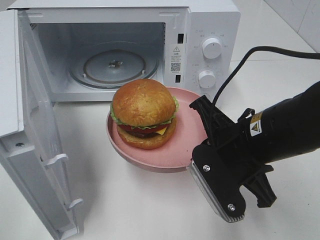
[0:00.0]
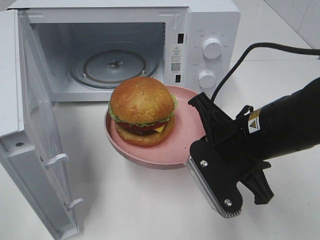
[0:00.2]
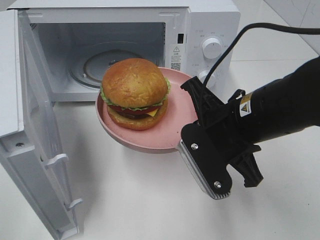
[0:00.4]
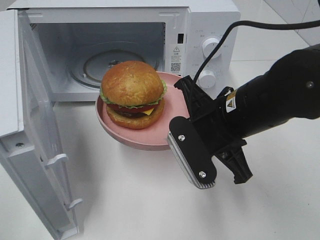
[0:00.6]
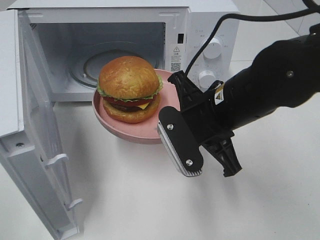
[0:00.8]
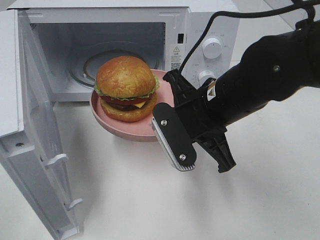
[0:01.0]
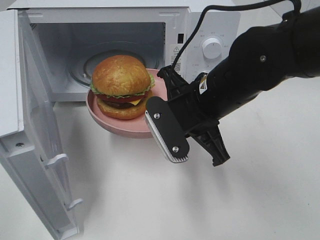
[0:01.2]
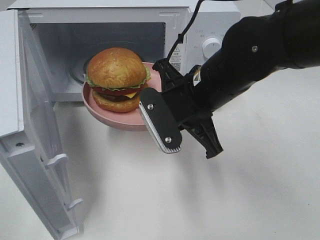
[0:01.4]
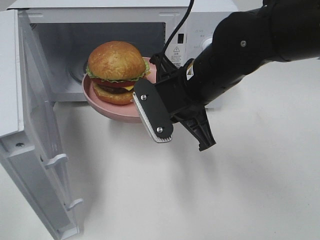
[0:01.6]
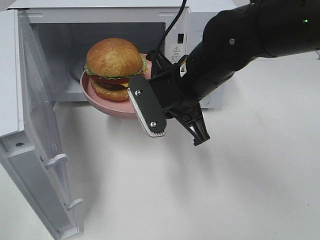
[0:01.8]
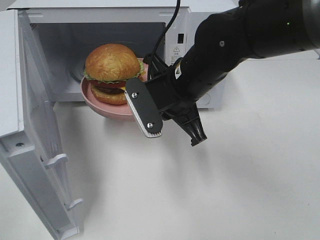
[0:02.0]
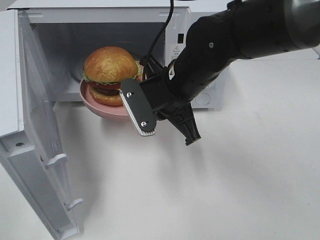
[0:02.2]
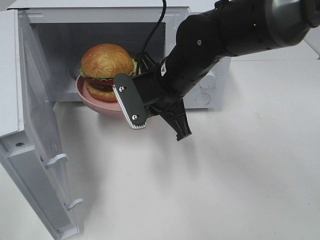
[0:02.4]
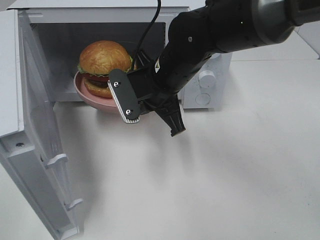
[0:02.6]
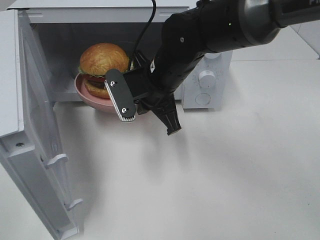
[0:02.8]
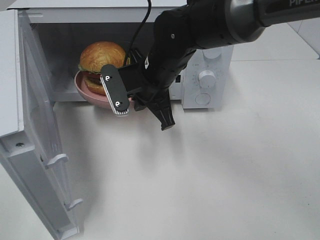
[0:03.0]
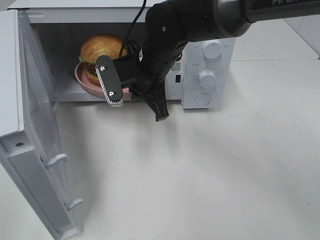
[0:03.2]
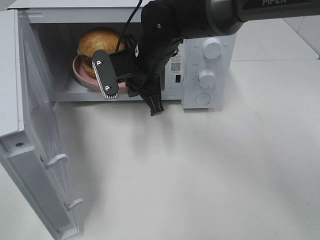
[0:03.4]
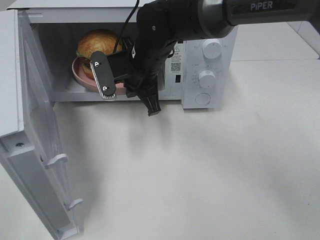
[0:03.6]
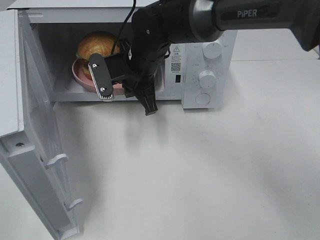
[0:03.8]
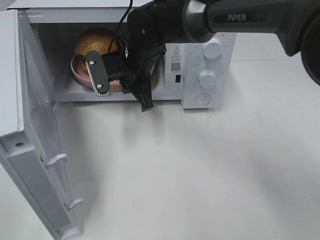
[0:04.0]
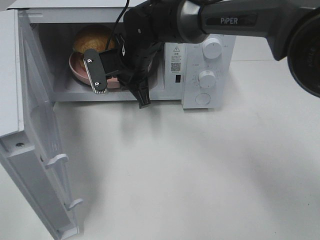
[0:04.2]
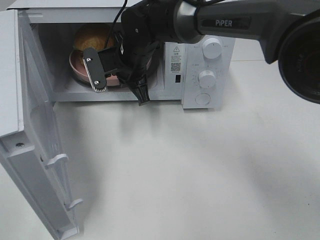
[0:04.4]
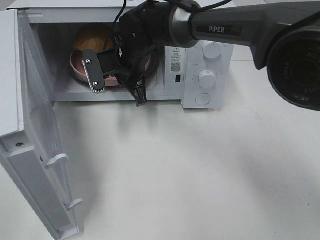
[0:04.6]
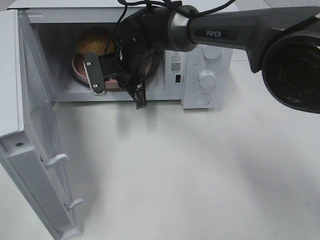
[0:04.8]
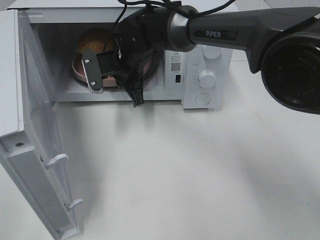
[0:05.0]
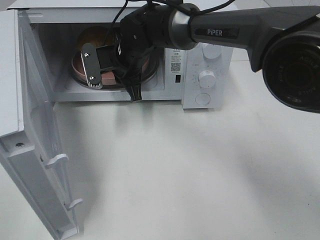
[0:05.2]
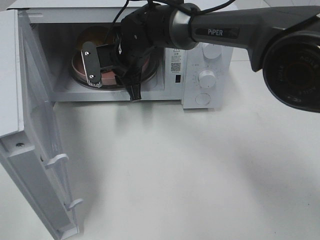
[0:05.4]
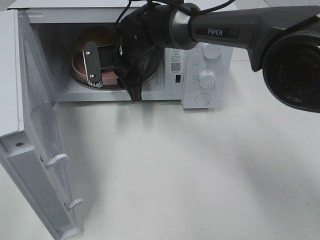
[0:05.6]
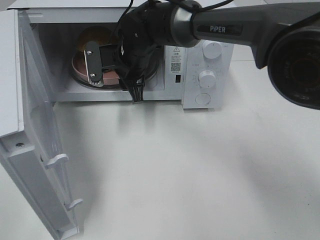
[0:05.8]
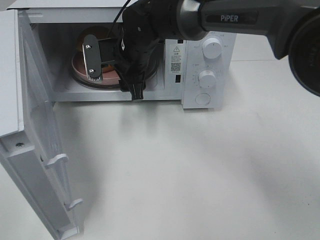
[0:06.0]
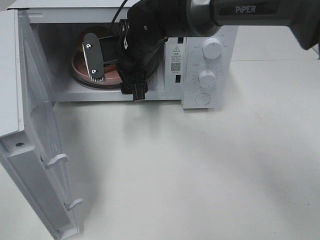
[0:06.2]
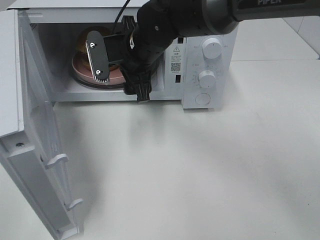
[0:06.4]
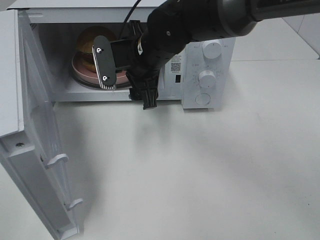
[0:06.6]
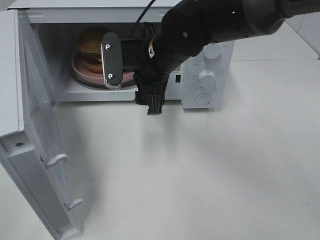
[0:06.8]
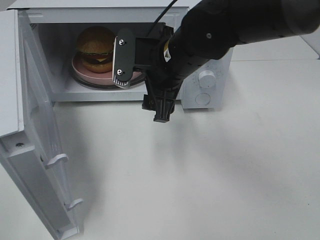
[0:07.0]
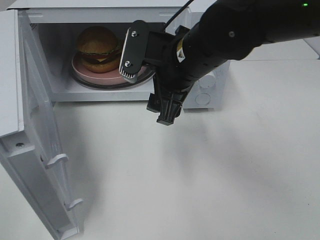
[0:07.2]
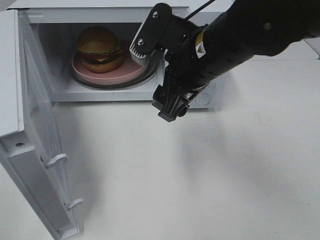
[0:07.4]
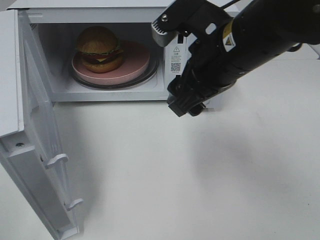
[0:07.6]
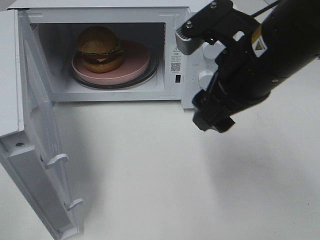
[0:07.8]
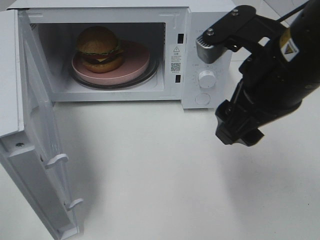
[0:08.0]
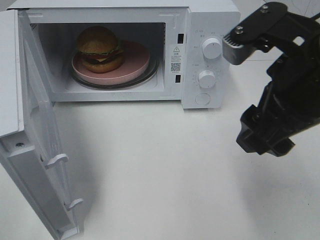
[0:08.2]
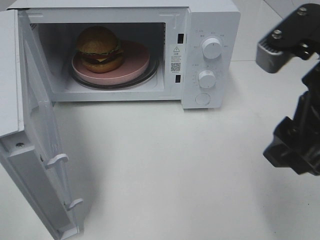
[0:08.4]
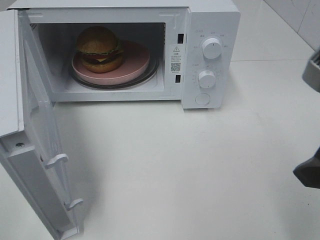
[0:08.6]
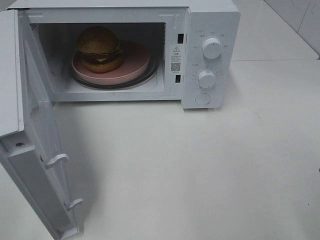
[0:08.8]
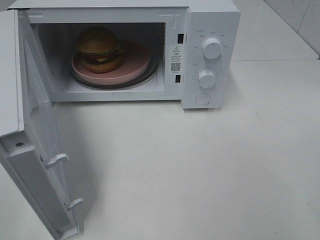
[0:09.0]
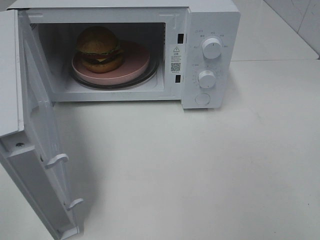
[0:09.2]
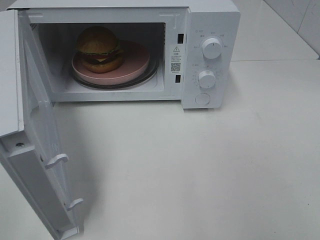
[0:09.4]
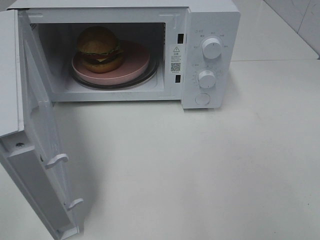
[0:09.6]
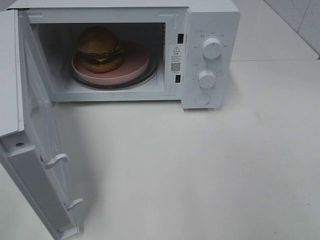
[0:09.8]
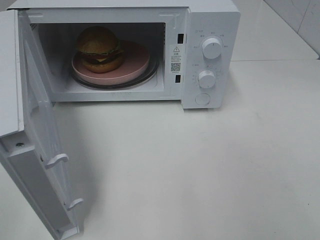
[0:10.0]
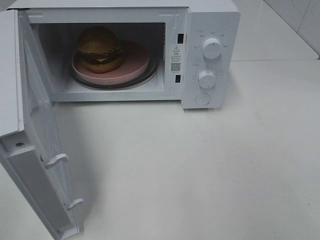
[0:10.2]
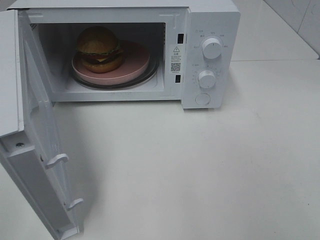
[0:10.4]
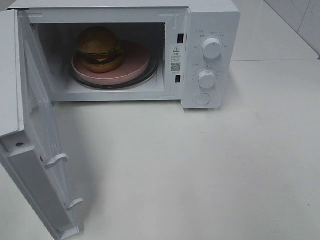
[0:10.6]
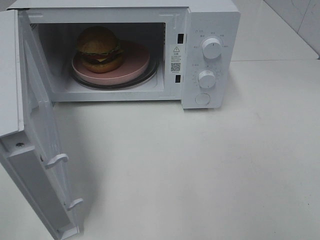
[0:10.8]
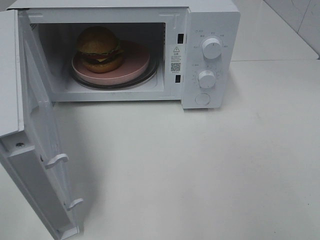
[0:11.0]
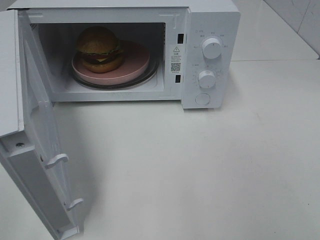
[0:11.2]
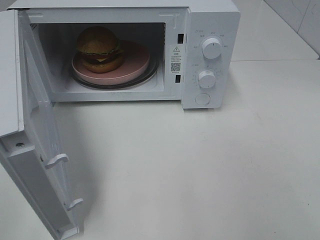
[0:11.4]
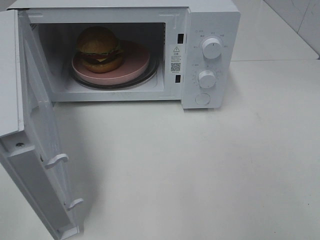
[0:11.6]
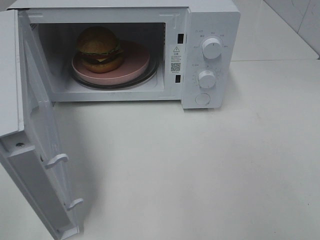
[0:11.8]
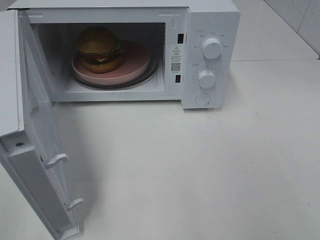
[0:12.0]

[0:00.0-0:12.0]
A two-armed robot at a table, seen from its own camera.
Task of the whole recording: Heat the burger.
Step, 0:00.0 to 0:05.4: Right hand: place the plate in the microwave.
0:00.0 to 0:01.6: The right gripper is displaced forward and to the left by roughly 10 cm.
0:01.6 to 0:03.0: The right gripper goes about 10 cm forward and to the left.
0:03.0 to 0:04.4: The right gripper is displaced forward by approximately 5 cm.
0:04.4 to 0:06.0: The right gripper opens its fingers.
0:06.0 to 0:07.6: The right gripper travels backward, to the right and upward by some 20 cm.
0:07.6 to 0:09.0: The right gripper moves to the right and backward, approximately 25 cm.
0:10.4 to 0:12.0: The two grippers keep their place.

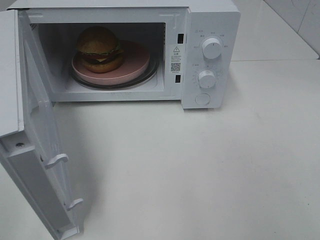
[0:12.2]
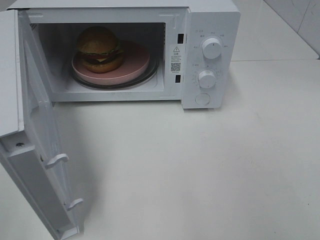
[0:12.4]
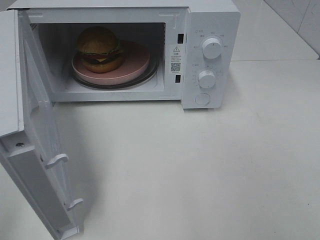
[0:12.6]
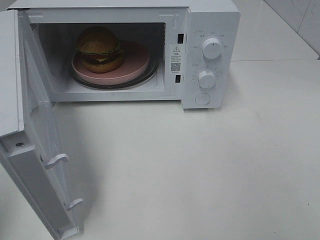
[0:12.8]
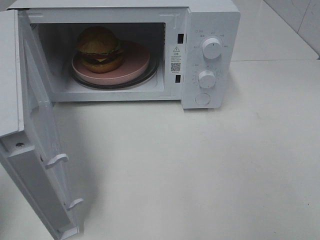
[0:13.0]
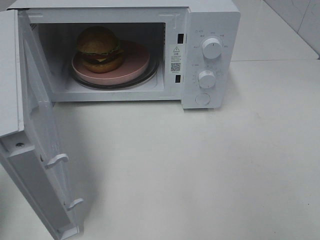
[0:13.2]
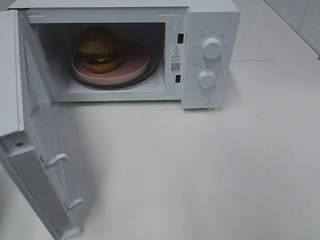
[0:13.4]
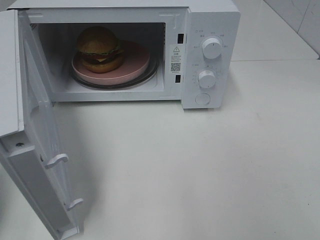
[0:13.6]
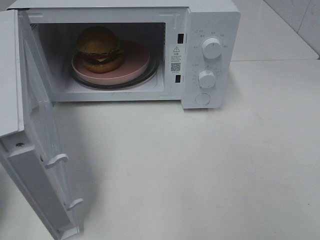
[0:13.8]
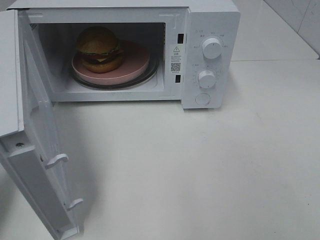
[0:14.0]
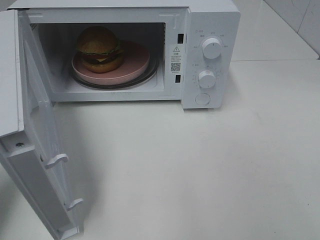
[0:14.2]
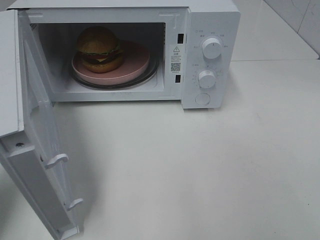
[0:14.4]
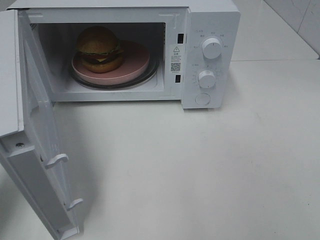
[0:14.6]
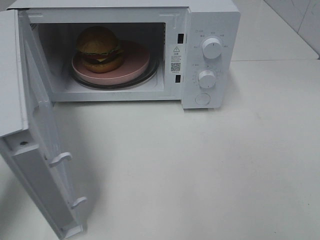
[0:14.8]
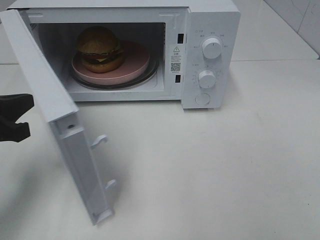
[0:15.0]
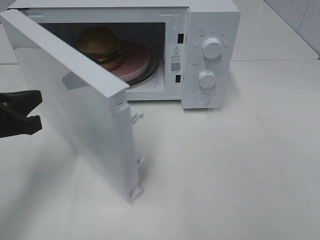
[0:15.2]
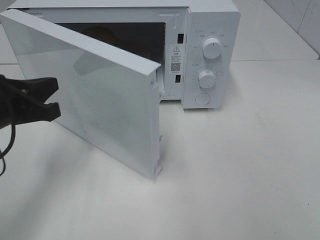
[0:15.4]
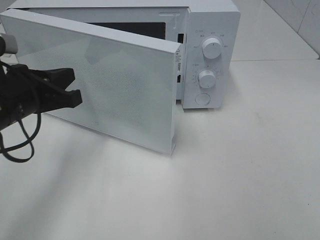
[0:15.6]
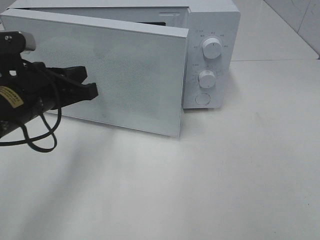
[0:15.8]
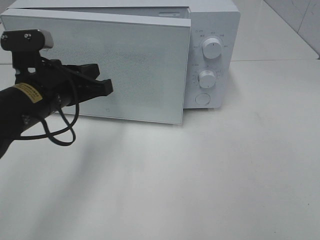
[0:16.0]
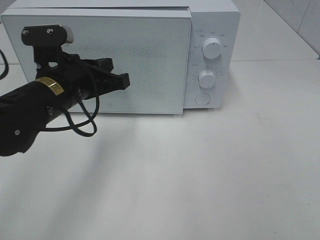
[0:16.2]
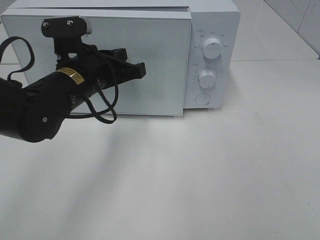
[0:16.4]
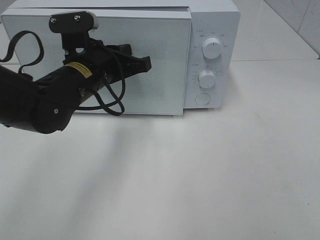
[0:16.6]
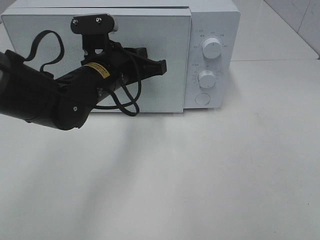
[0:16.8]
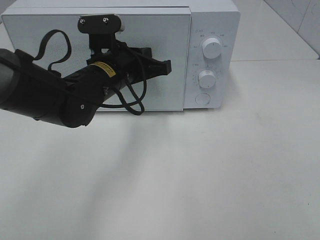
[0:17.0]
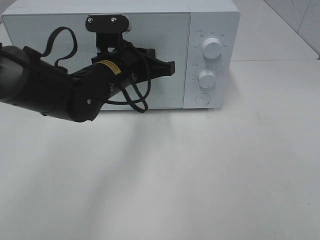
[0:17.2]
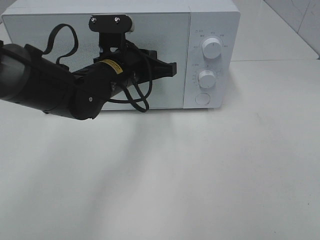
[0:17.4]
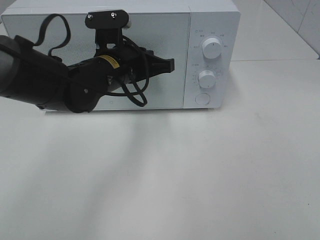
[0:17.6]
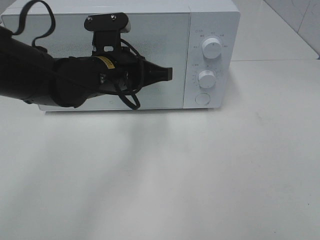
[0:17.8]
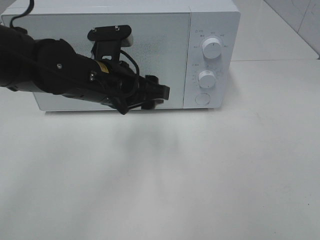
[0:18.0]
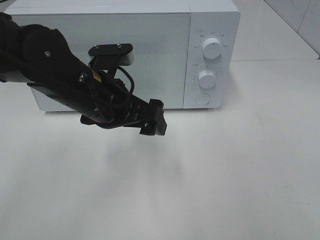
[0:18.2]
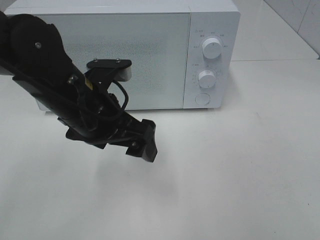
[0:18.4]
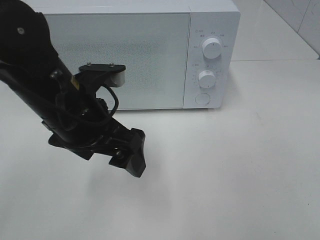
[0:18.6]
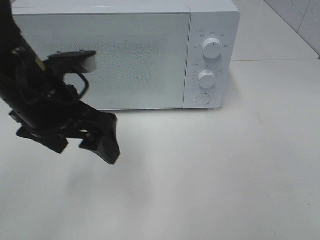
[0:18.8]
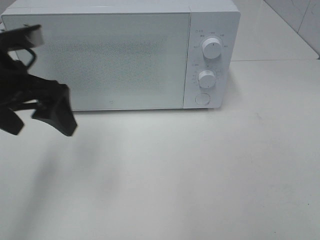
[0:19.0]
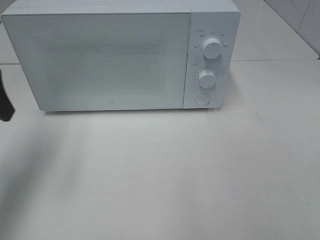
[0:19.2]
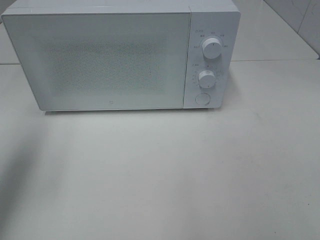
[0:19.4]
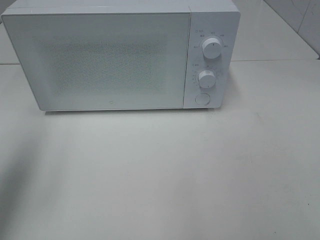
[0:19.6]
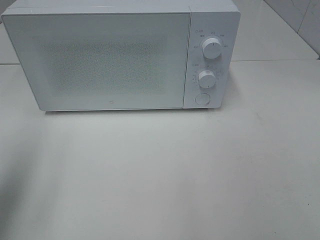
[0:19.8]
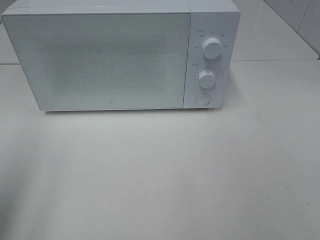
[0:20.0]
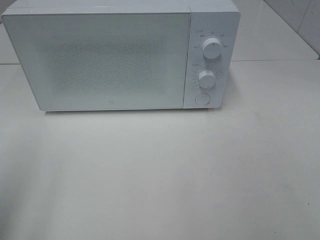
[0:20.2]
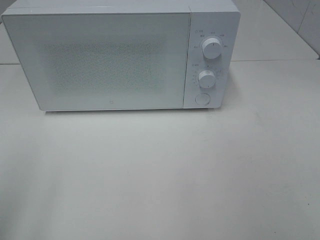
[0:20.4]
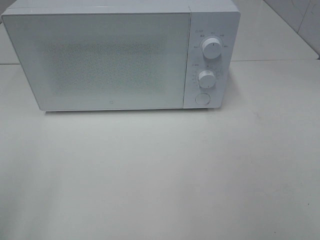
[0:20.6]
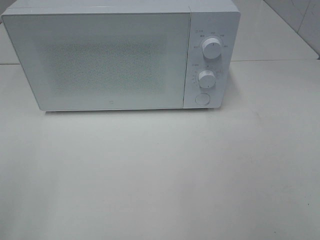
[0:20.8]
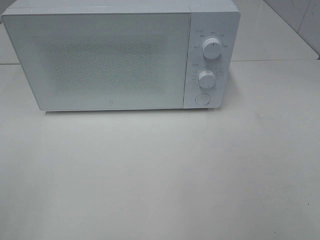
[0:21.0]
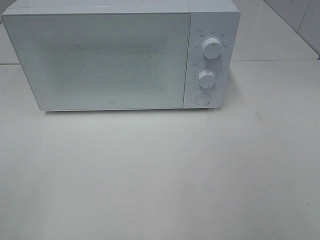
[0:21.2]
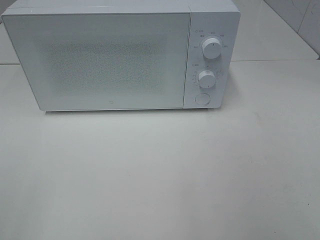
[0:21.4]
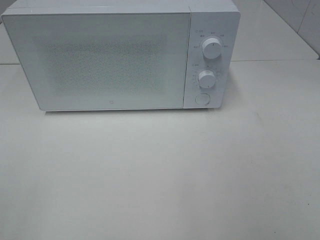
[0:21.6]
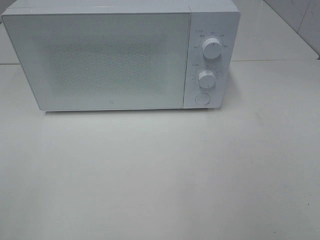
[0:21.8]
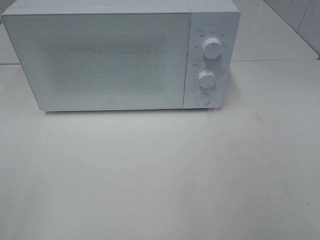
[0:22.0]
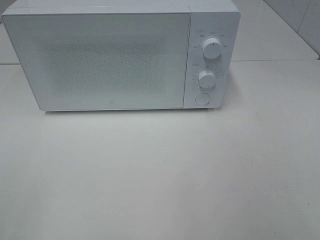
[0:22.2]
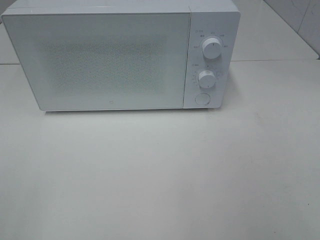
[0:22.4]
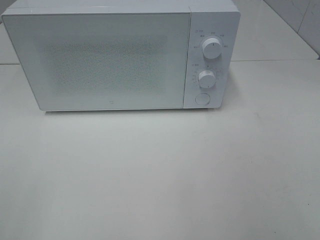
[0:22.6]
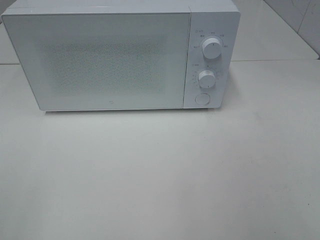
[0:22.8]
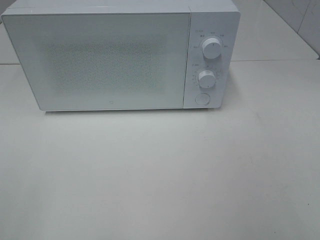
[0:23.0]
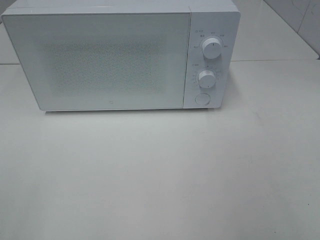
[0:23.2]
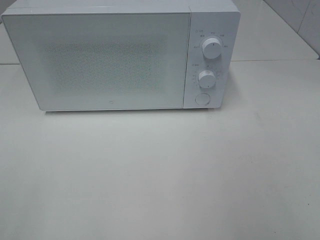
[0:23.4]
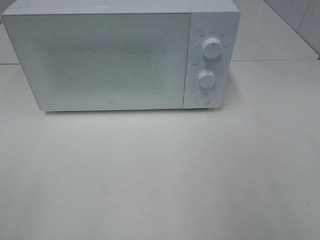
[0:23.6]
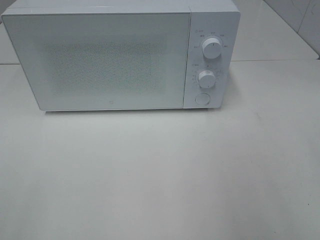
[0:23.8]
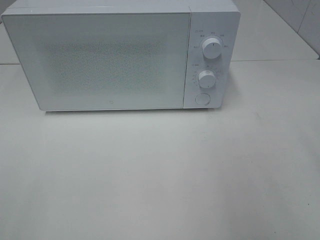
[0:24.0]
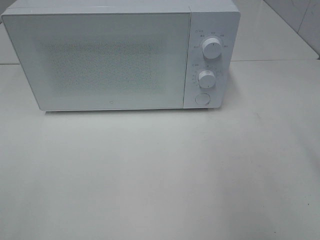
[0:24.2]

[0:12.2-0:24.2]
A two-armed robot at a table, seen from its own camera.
Task of the whole recording: Heat the burger.
Step, 0:12.2 to 0:17.6: Left hand: close the microwave door.
0:13.8 to 0:15.2: The left gripper shifts roughly 10 cm to the right, forward and downward.
0:15.2 to 0:16.6: The left gripper travels to the right and forward by roughly 20 cm.
0:16.6 to 0:18.2: The left gripper goes approximately 5 cm backward, and opens.
0:18.2 to 0:19.8: The left gripper is displaced to the left, upward and backward by approximately 30 cm.
0:19.8 to 0:21.2: The left gripper is displaced backward by roughly 15 cm.
0:21.2 to 0:22.6: Both grippers stay put.
